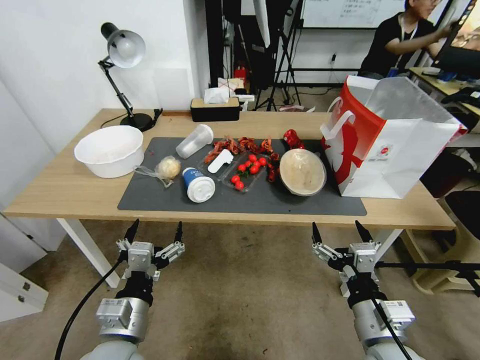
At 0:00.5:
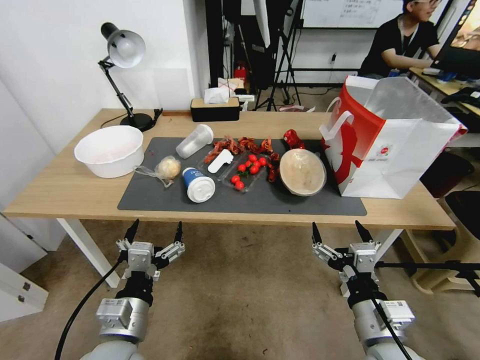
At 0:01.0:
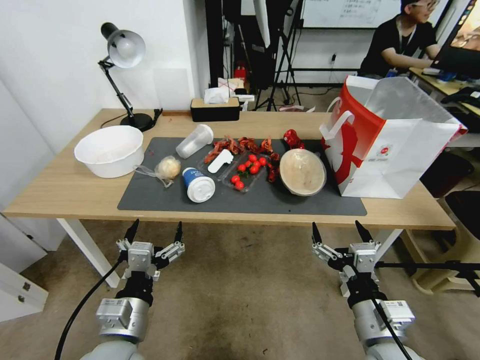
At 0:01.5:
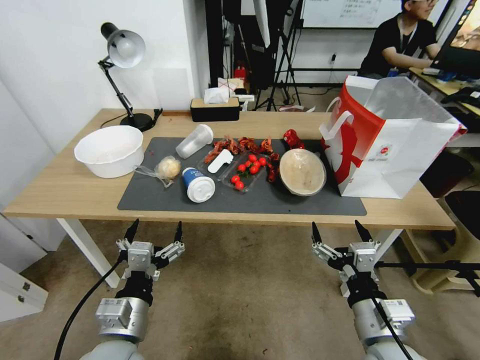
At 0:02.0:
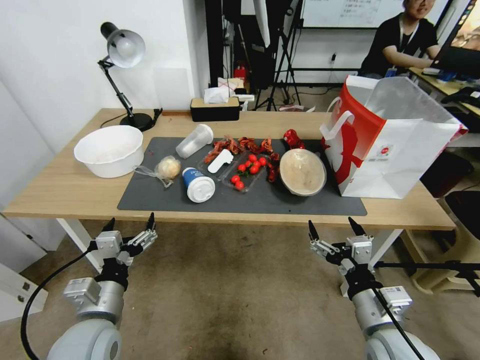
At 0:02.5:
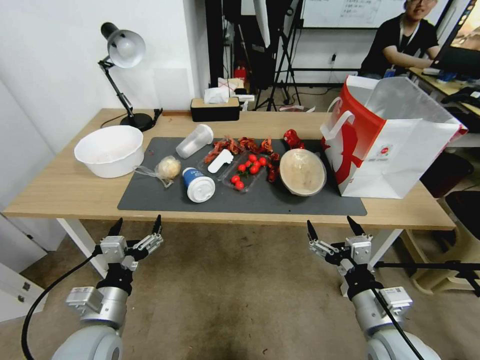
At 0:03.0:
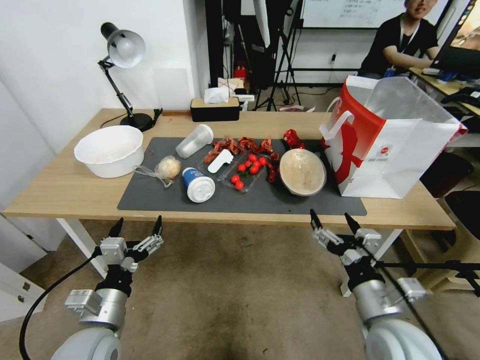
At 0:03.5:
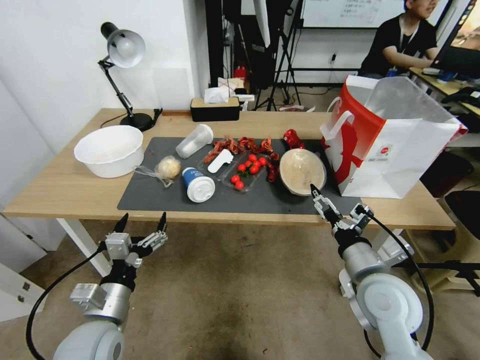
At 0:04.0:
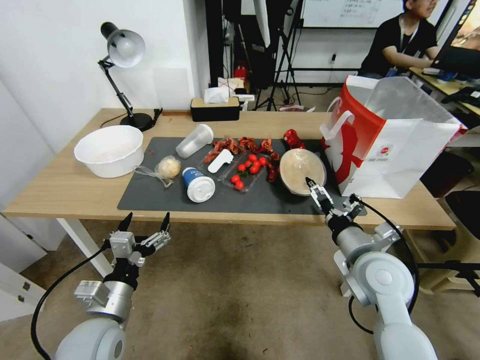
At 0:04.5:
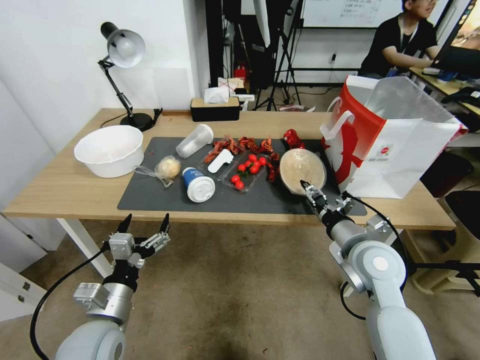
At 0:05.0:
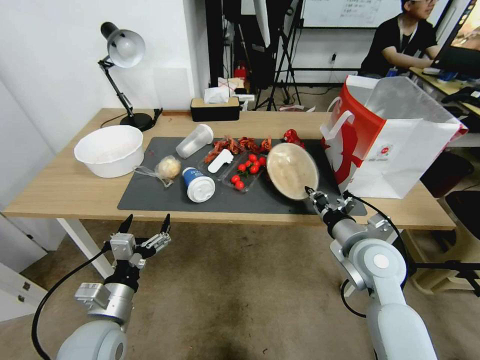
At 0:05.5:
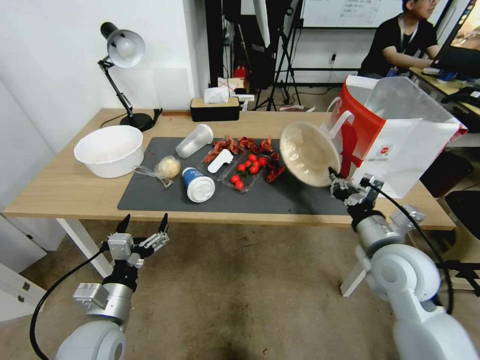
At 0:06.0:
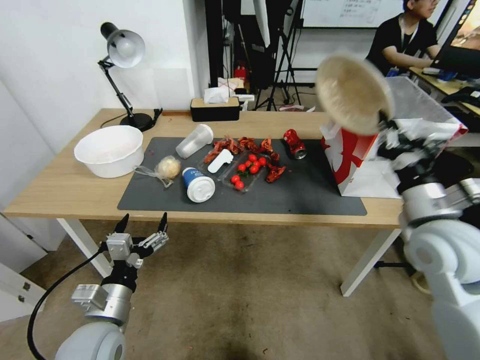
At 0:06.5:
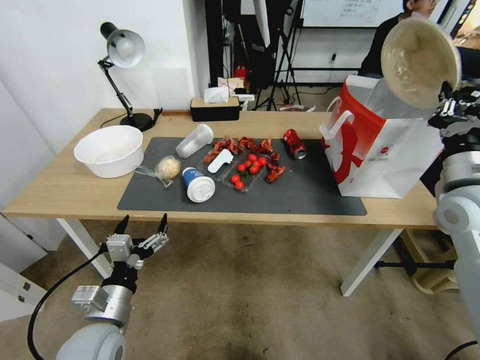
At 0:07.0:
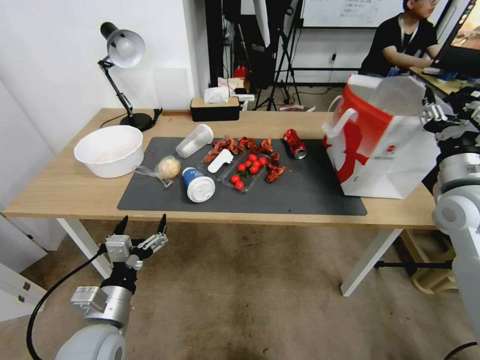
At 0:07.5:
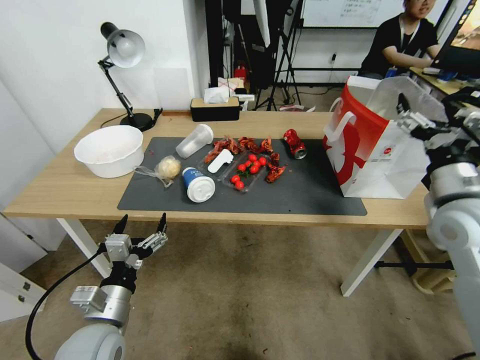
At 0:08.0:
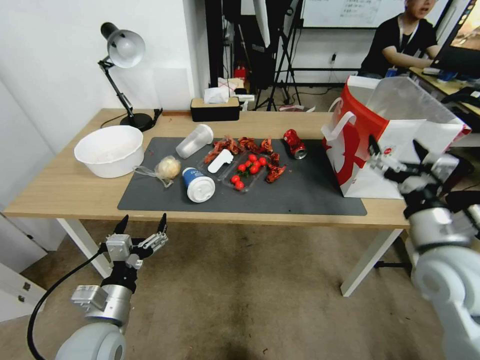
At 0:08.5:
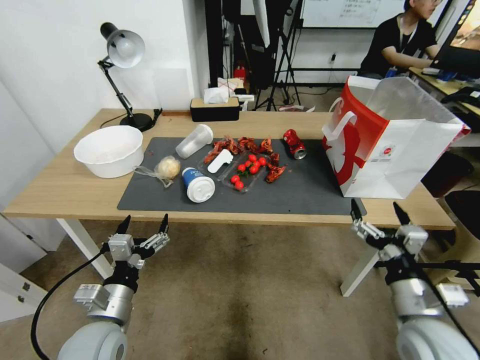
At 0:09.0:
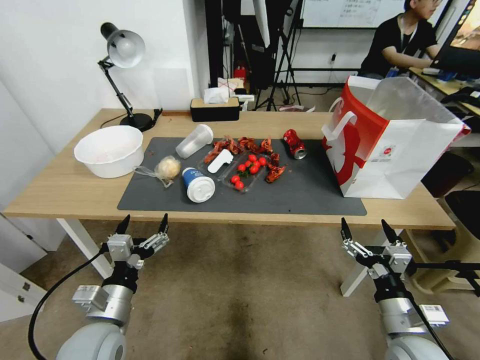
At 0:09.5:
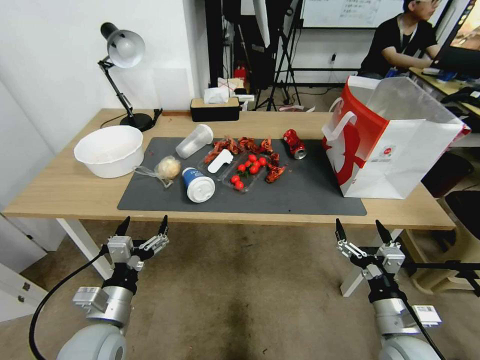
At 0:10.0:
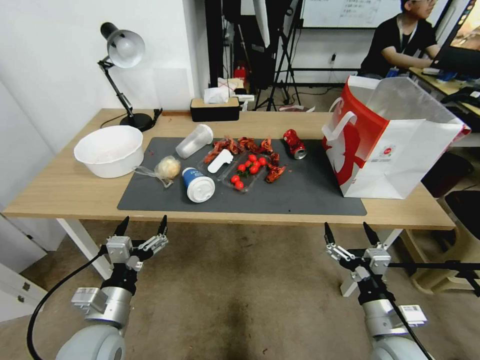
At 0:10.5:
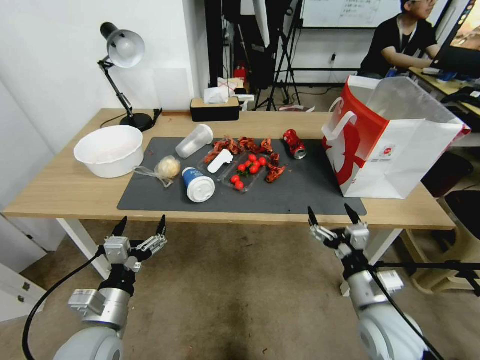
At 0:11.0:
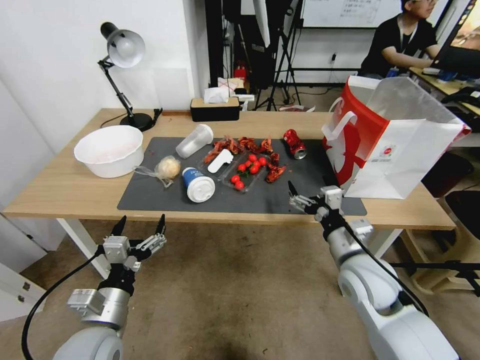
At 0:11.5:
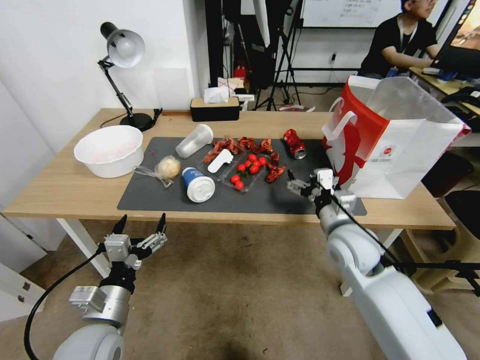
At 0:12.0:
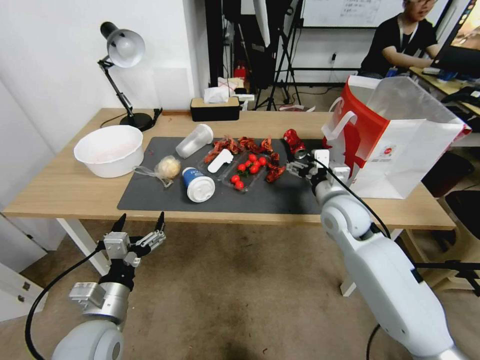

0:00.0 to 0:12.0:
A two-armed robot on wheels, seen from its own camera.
0:02.0 to 0:04.0: The right gripper goes roughly 10 cm forward.
0:04.0 to 0:06.0: The right gripper ends up some 5 cm from where it was, and closes its fingers.
0:06.0 to 0:08.0: The right gripper opens its fingers.
0:08.0 to 0:10.0: The right gripper is displaced downward and backward by roughly 20 cm.
0:10.0 to 0:12.0: The right gripper shifts some 25 cm forward and upward.

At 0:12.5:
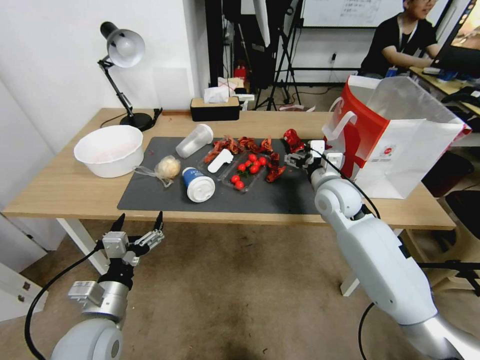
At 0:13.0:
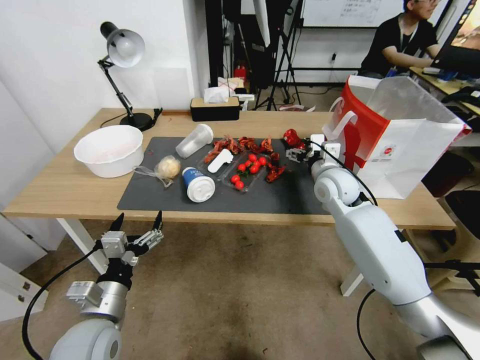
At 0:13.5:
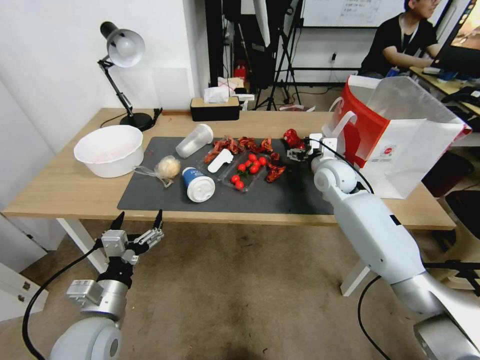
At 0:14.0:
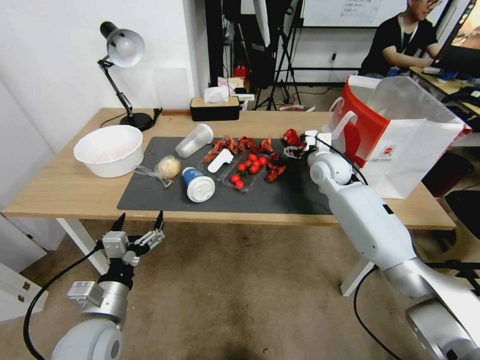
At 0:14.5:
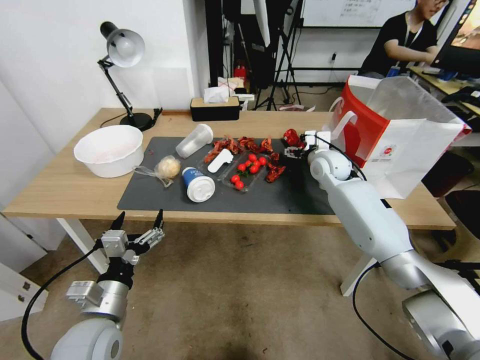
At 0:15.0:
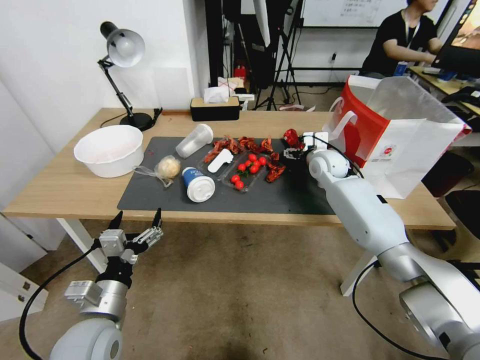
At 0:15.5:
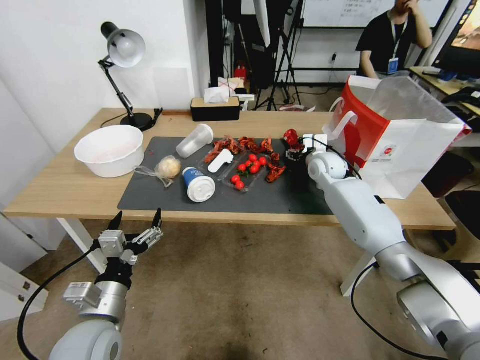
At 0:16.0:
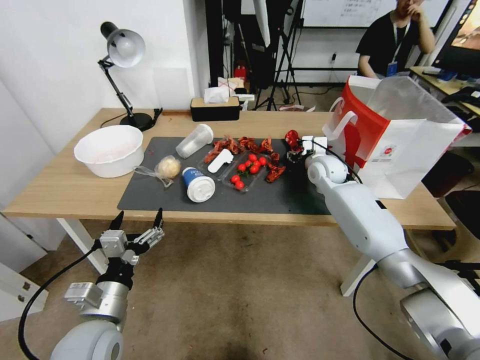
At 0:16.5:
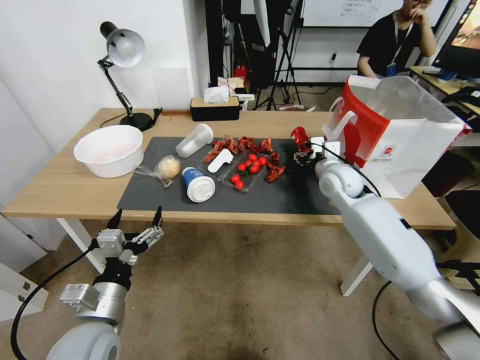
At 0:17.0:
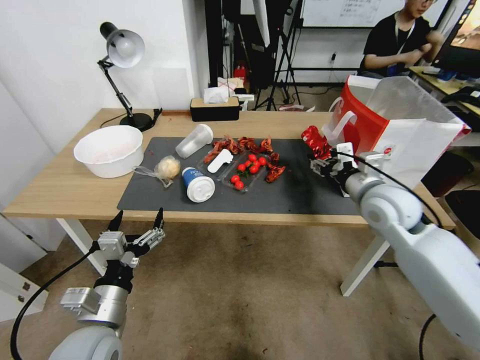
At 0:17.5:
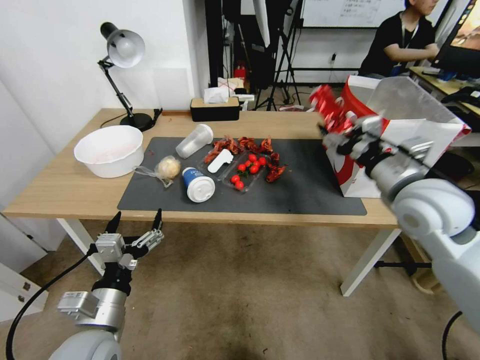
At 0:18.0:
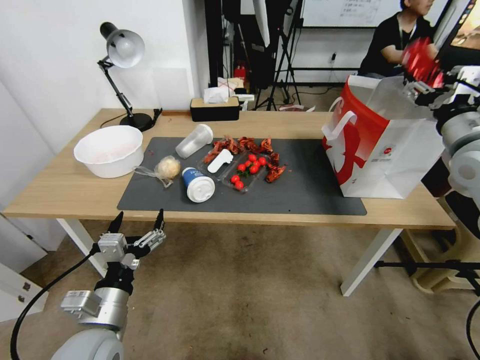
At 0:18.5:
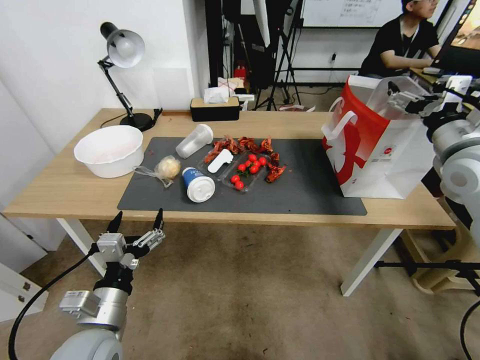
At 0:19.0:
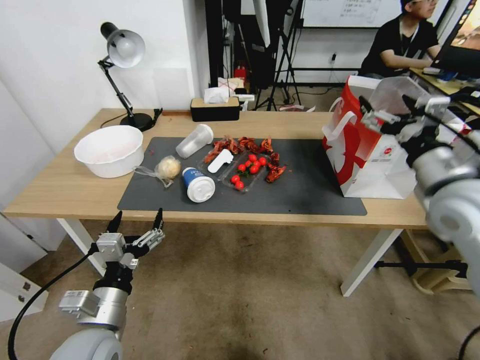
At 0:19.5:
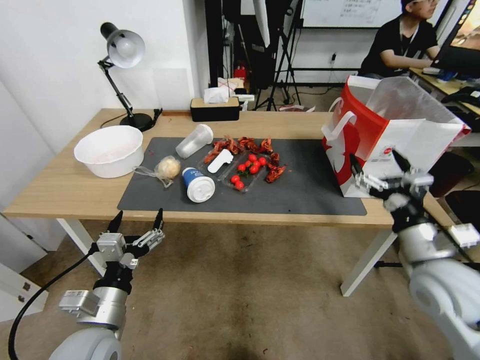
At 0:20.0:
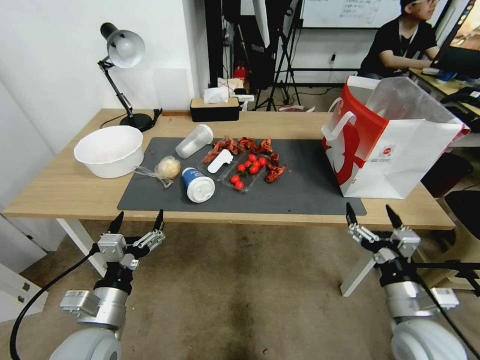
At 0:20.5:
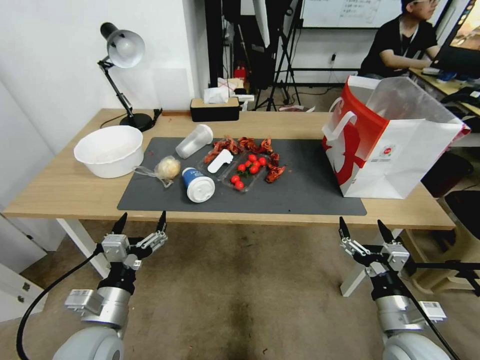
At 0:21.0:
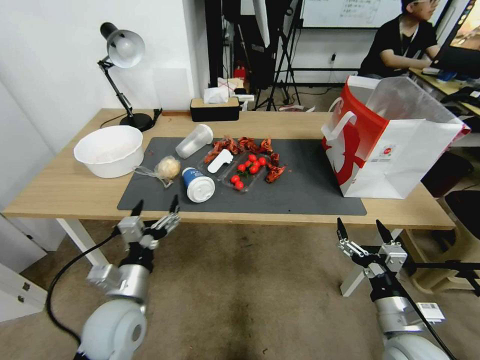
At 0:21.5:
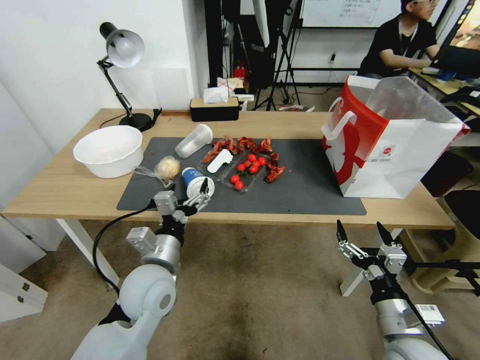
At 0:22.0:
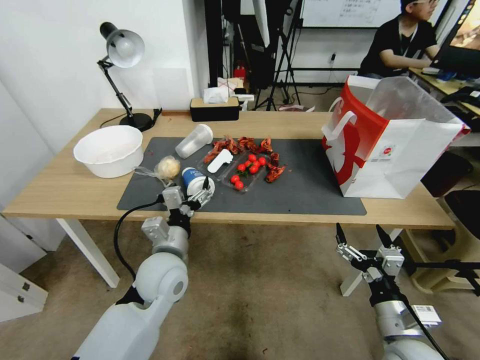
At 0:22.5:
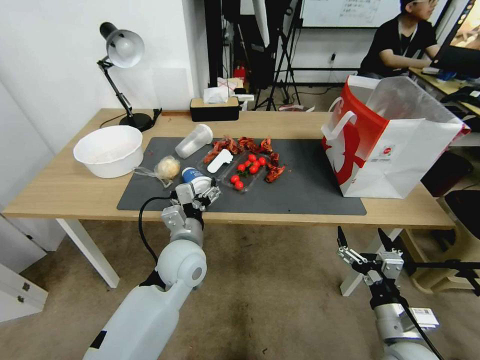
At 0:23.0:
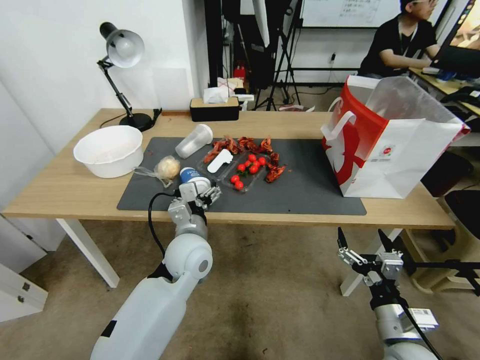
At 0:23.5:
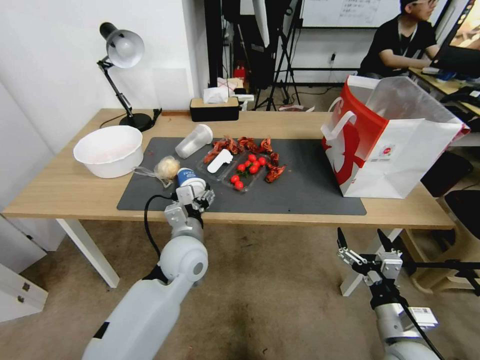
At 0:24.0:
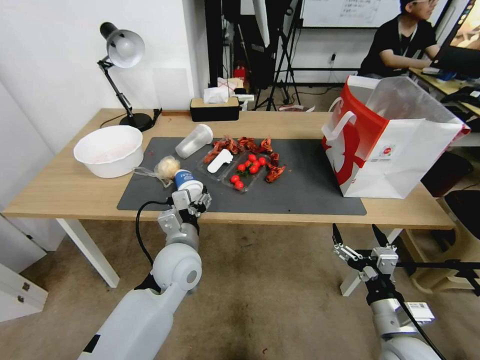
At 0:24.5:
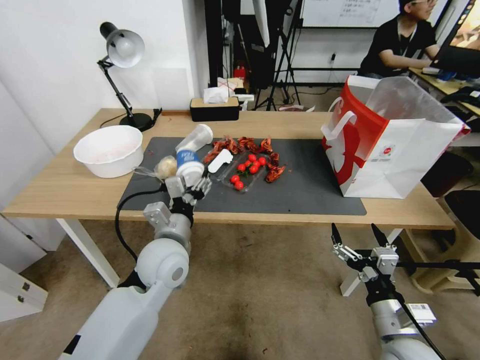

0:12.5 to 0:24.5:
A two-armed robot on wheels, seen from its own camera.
0:12.5 to 0:14.5: The right gripper moves forward, about 10 cm.
0:14.5 to 0:16.5: The right gripper goes roughly 5 cm backward, and closes up.
0:16.5 to 0:18.5: The right gripper travels to the right, upward and backward by some 25 cm, and opens its fingers.
0:18.5 to 0:20.5: The right gripper heads downward and backward, covering about 35 cm.
0:20.5 to 0:22.5: The left gripper heads forward and to the right, covering approximately 20 cm.
0:22.5 to 0:24.5: The grippers move only a little.

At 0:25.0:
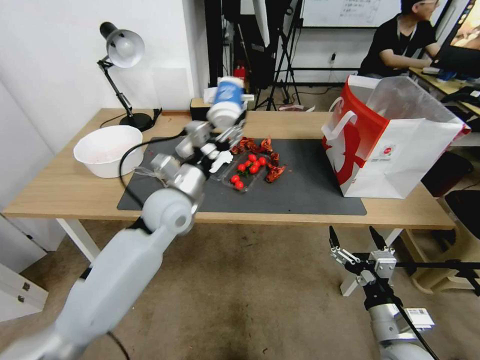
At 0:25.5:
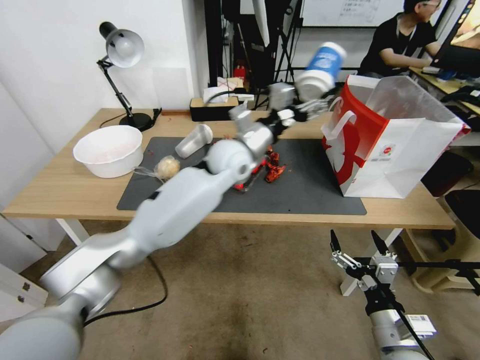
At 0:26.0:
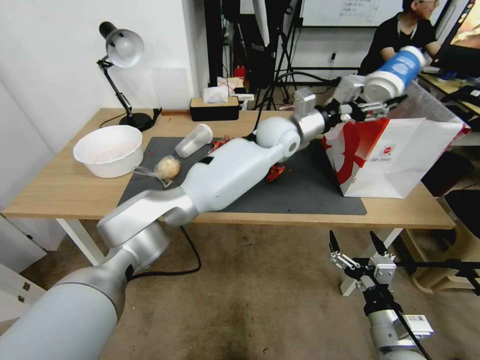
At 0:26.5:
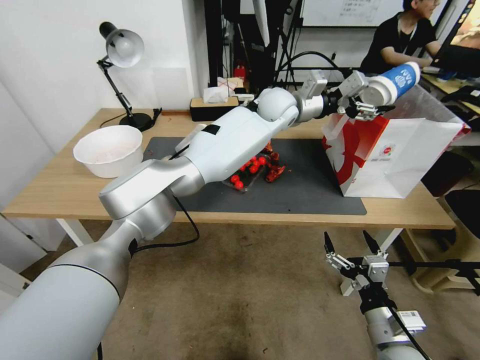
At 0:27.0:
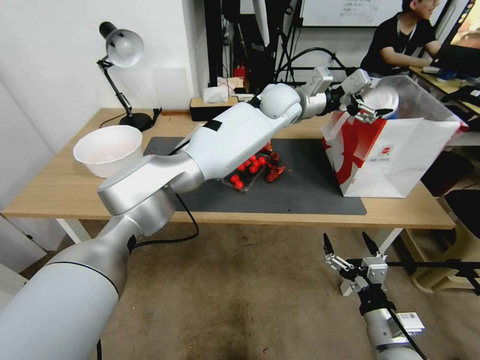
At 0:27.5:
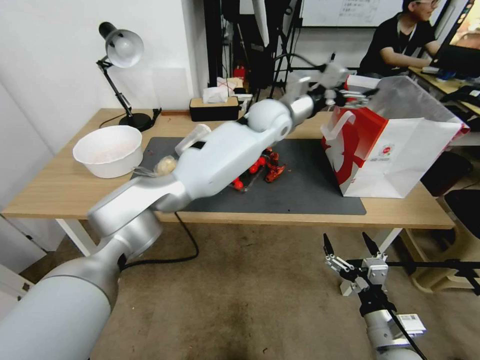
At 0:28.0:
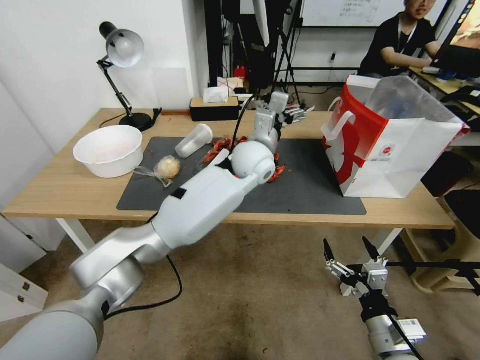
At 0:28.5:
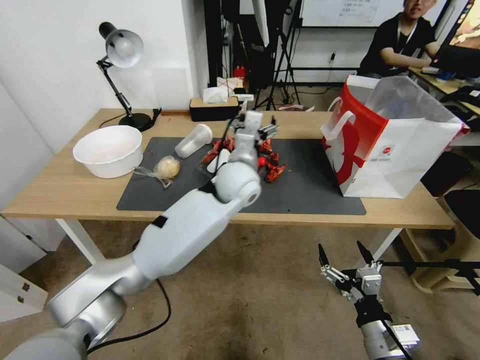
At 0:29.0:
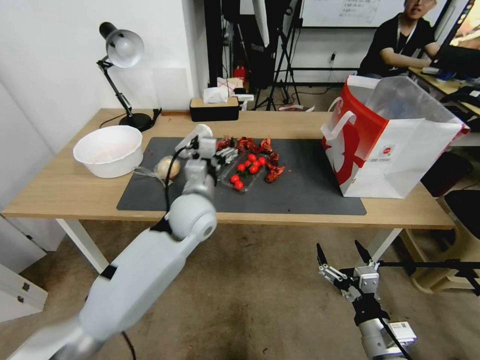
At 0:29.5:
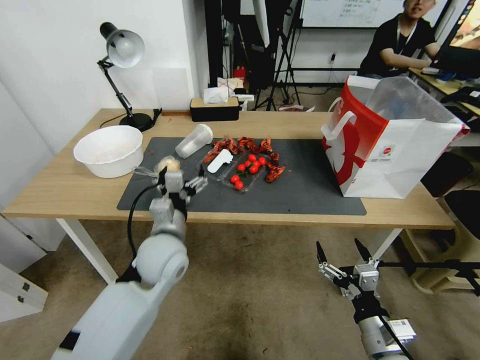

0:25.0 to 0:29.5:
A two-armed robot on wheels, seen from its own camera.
0:25.0 to 0:27.0: The left gripper shifts some 35 cm to the right, forward and upward.
0:27.0 to 0:29.5: The left gripper shifts roughly 40 cm backward, to the left and downward.
